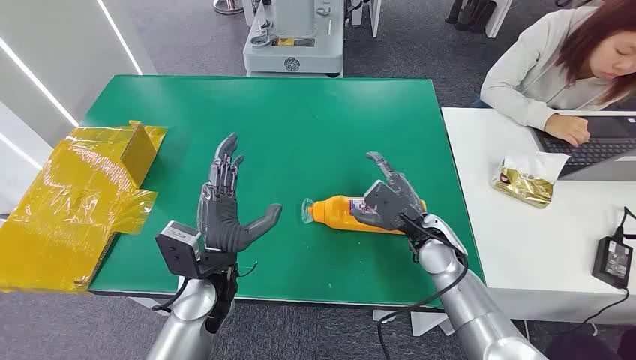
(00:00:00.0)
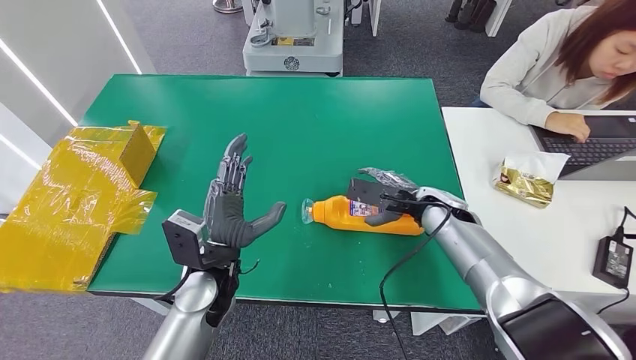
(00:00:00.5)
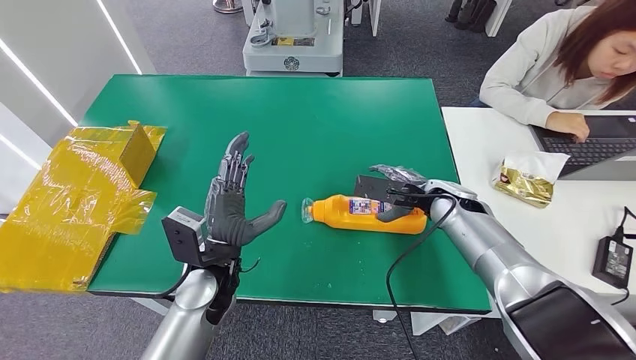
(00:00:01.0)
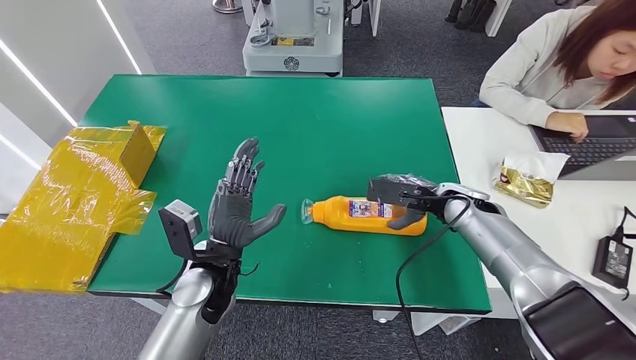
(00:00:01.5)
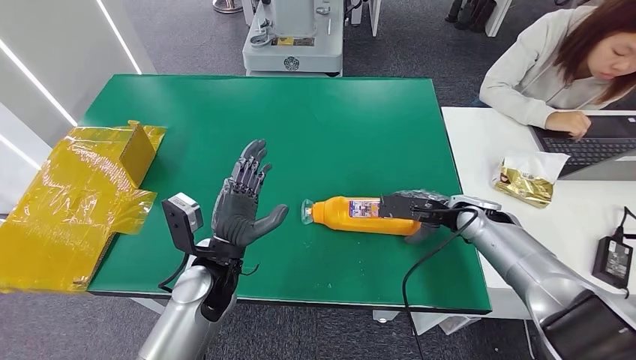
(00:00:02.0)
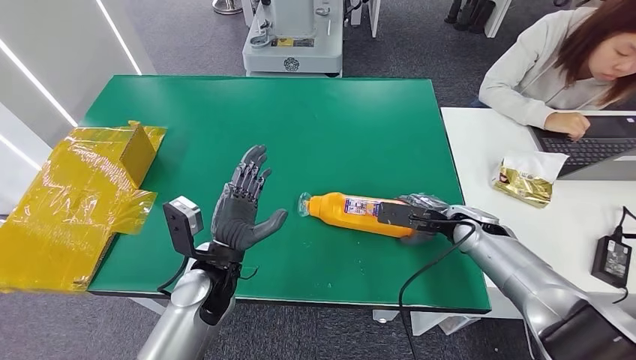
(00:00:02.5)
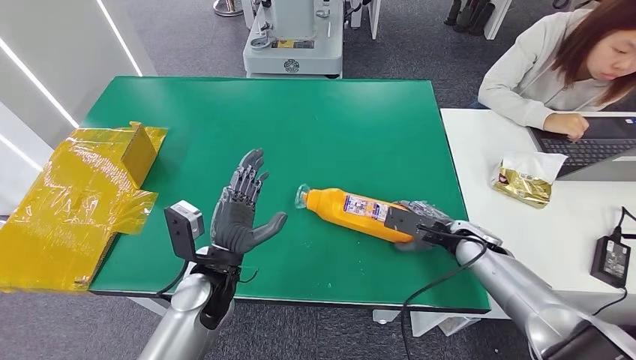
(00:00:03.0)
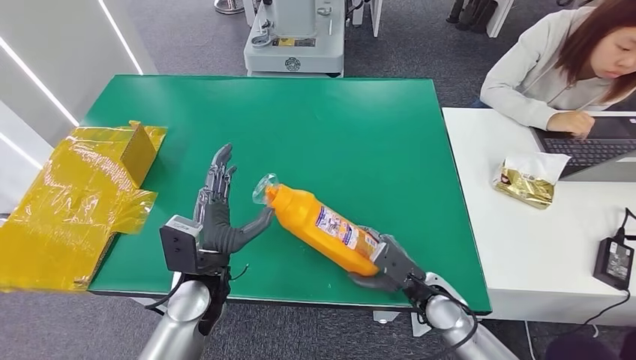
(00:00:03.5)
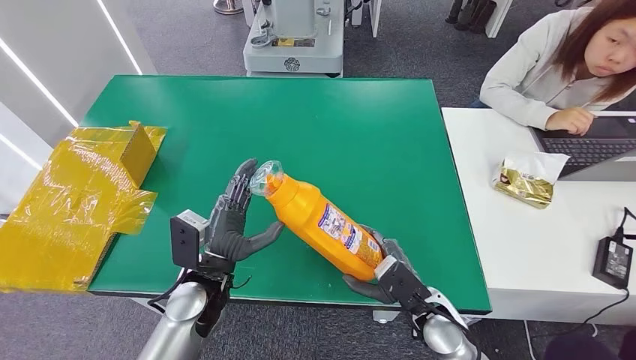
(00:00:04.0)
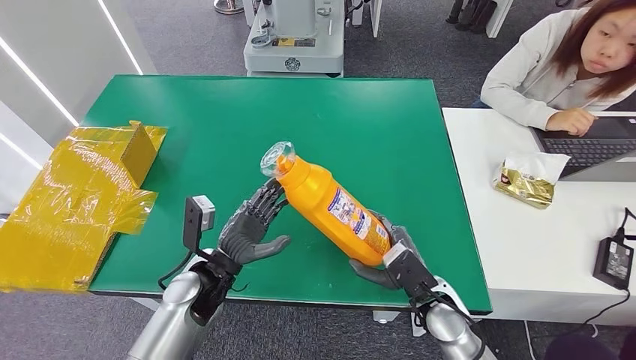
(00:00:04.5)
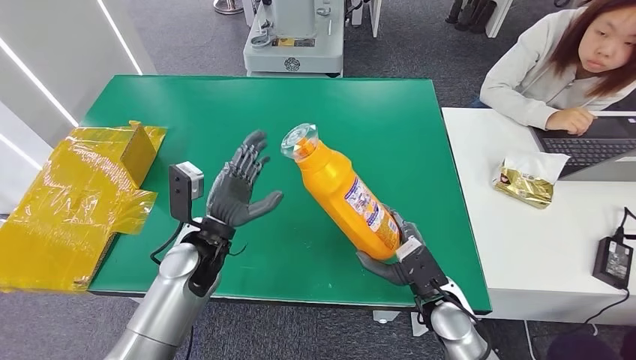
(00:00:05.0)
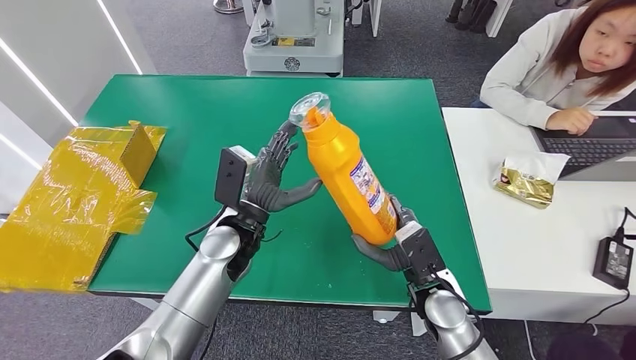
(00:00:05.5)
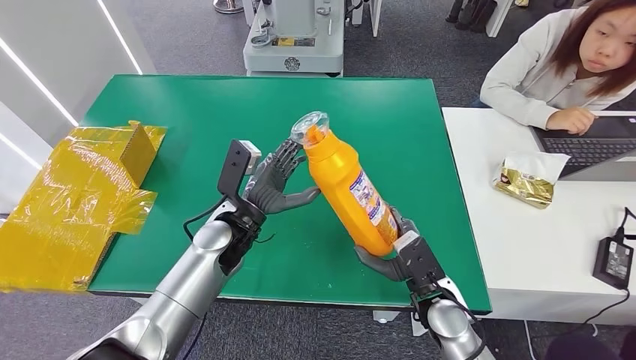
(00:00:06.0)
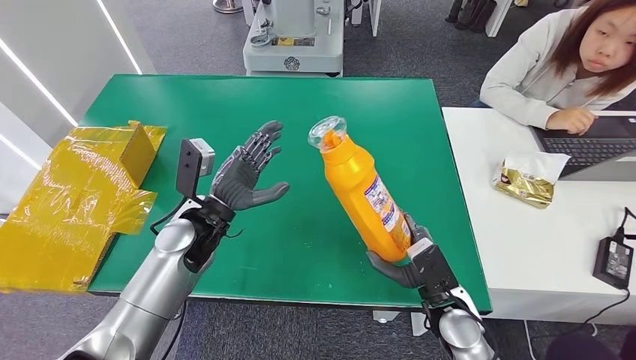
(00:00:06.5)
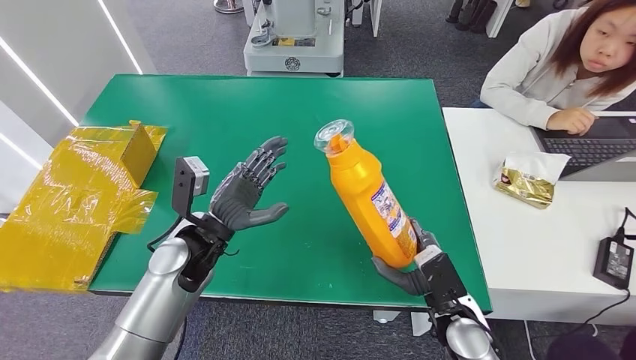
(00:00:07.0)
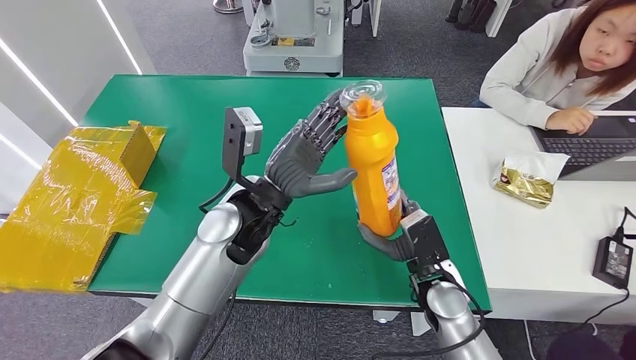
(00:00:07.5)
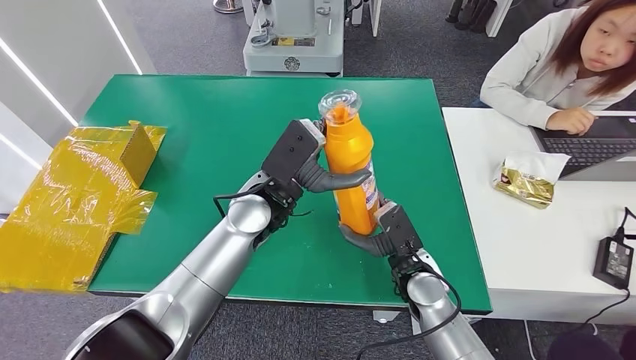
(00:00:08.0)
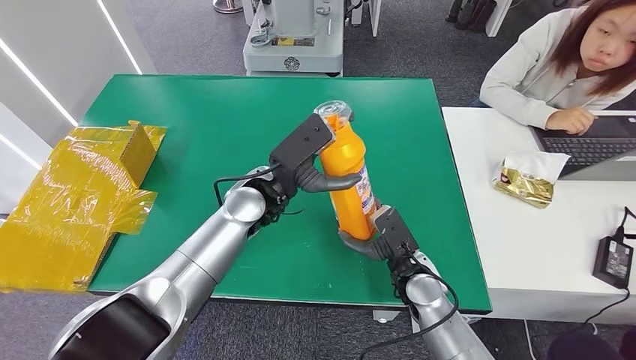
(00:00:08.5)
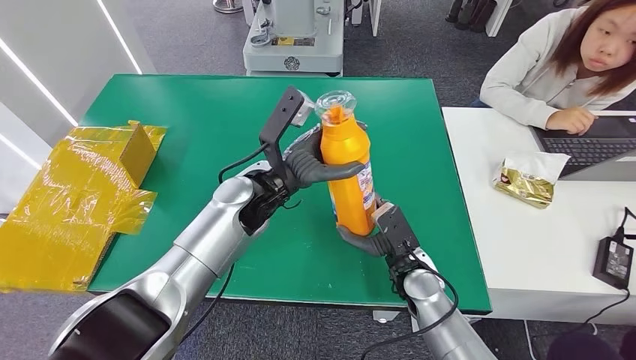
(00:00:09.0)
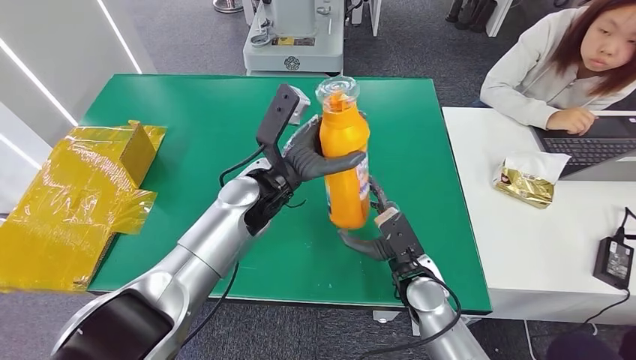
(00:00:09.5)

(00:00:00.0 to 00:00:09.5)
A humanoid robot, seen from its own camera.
Step, 00:00:00.0 - 00:00:03.5: Pick up the bottle from the table.
00:00:02.0 - 00:00:04.0: The right hand is displaced backward, to the left and downward by about 20 cm.
00:00:04.0 - 00:00:05.5: The left hand is displaced forward by about 5 cm.
00:00:05.5 - 00:00:07.5: The left hand shifts approximately 10 cm upward.
00:00:07.5 - 00:00:09.5: The left hand shifts by about 5 cm.

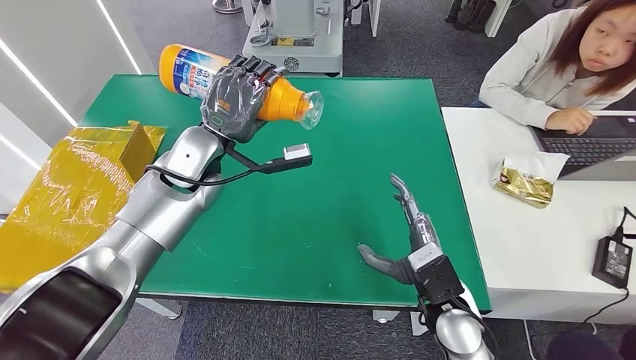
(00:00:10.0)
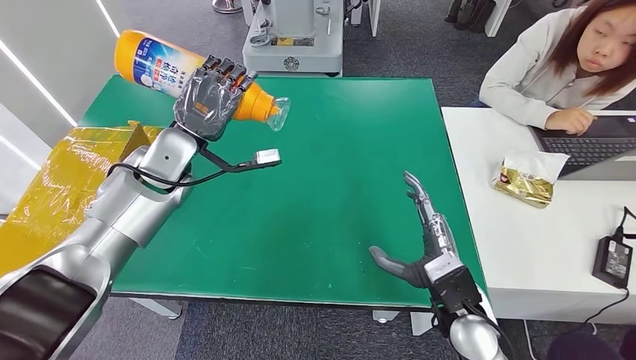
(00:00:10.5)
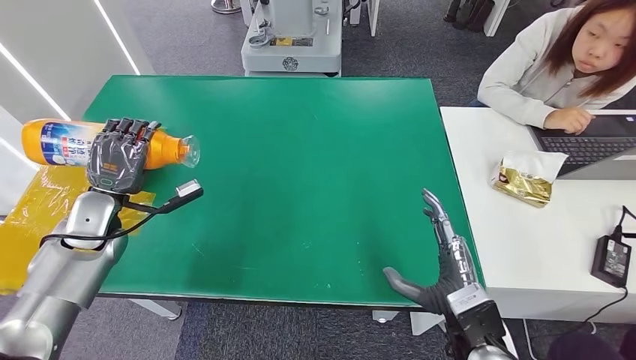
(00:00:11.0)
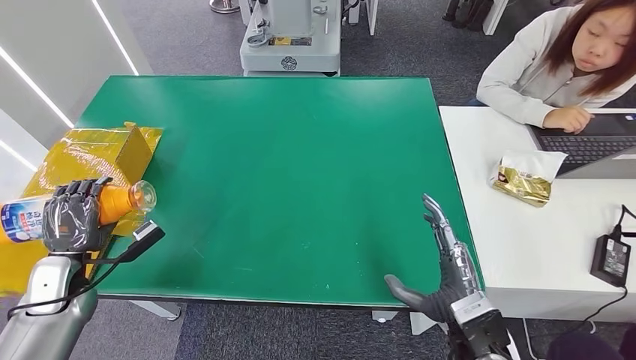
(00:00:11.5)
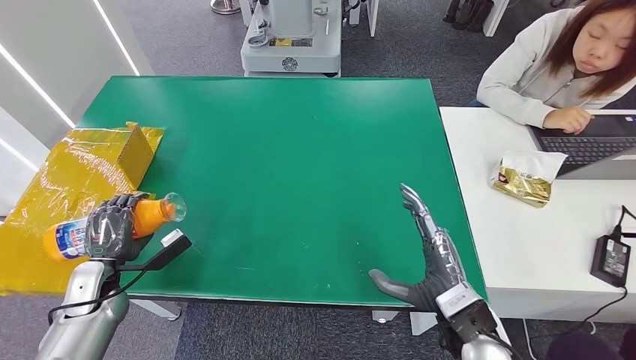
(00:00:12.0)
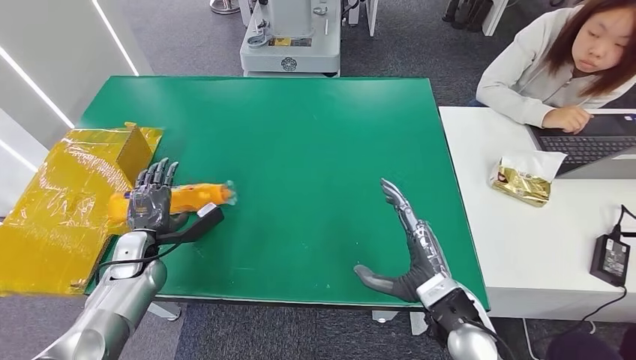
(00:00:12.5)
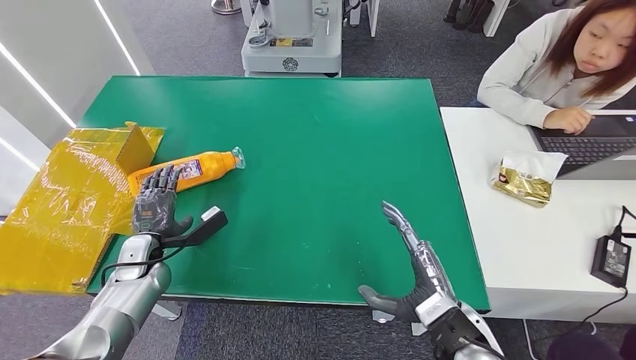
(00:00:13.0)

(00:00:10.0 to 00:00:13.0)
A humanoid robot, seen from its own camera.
Step, 00:00:10.0 - 00:00:13.0: Turn the bottle to the front side.
00:00:11.5 - 00:00:13.0: The left hand heads to the right, covering about 10 cm.
